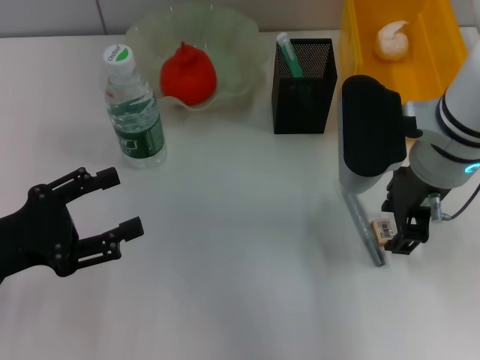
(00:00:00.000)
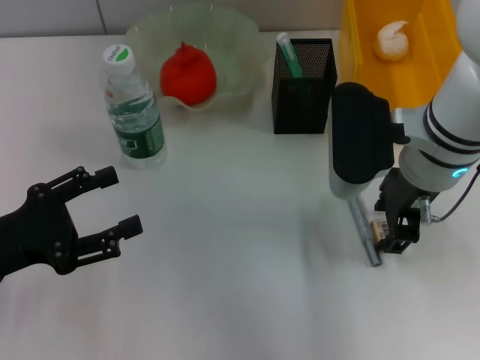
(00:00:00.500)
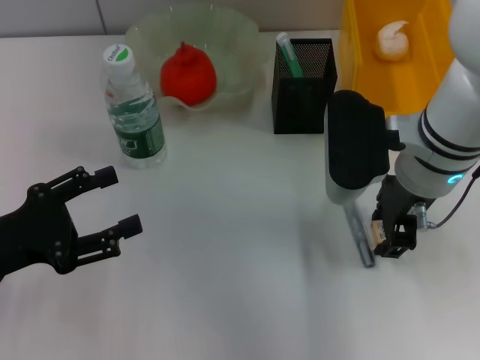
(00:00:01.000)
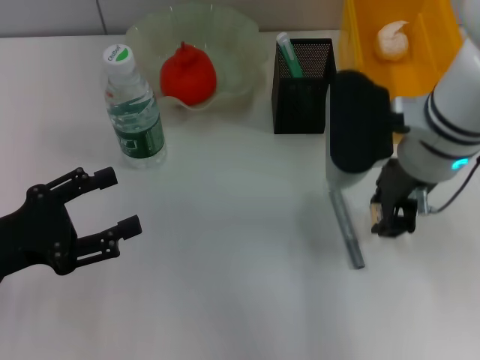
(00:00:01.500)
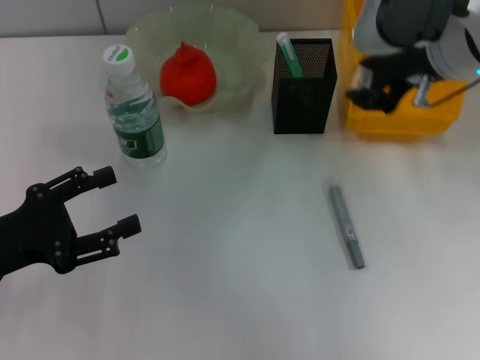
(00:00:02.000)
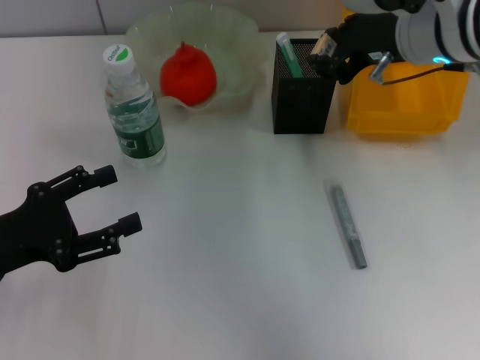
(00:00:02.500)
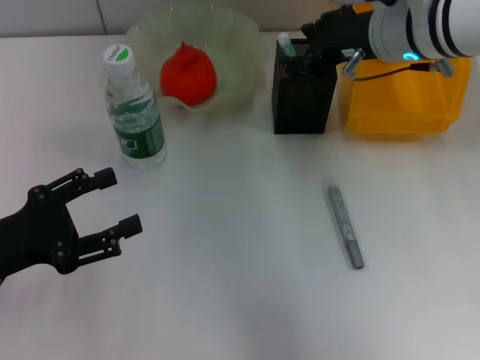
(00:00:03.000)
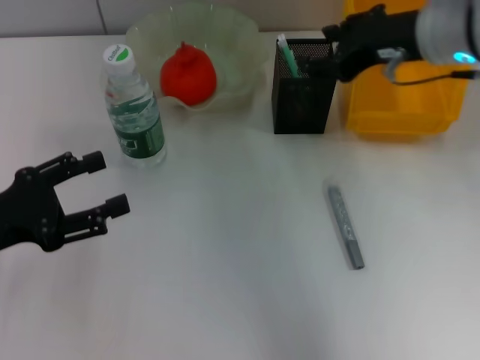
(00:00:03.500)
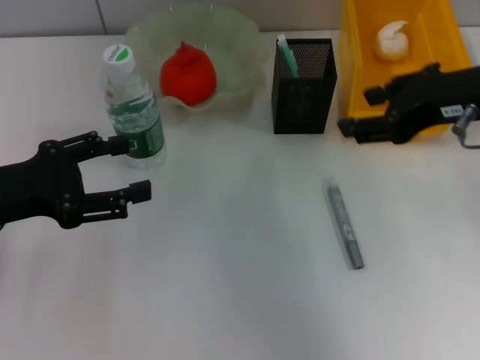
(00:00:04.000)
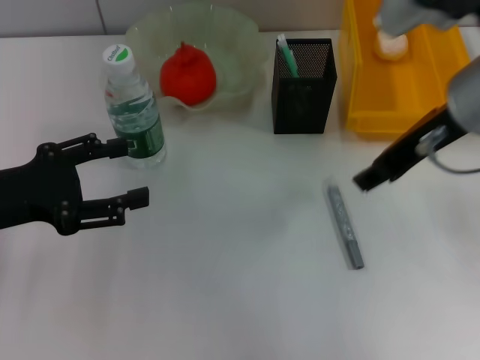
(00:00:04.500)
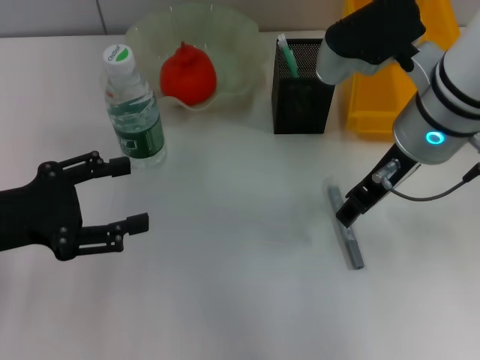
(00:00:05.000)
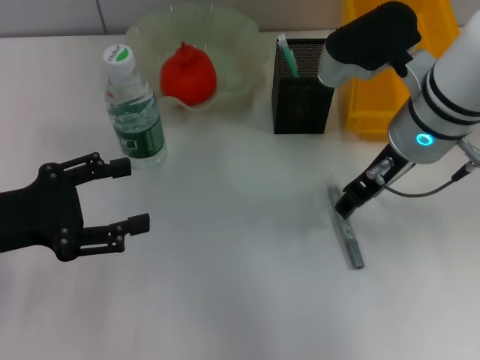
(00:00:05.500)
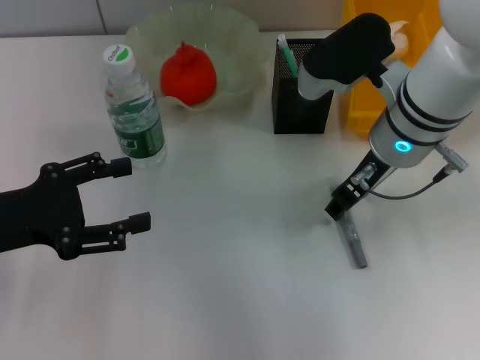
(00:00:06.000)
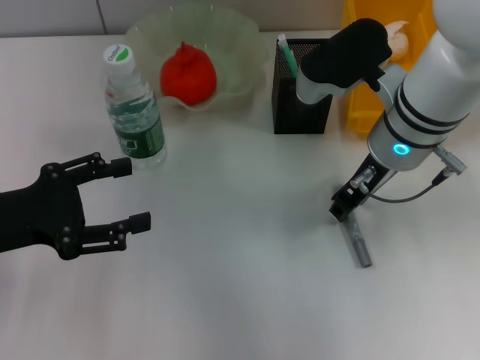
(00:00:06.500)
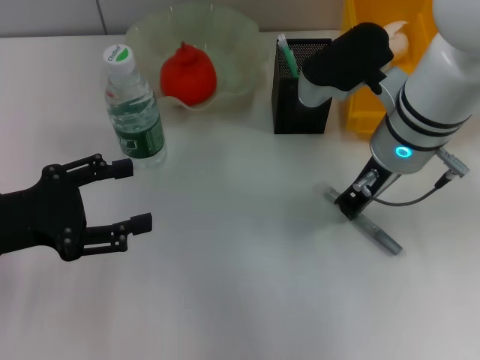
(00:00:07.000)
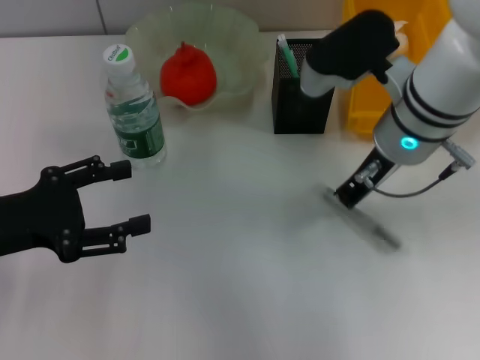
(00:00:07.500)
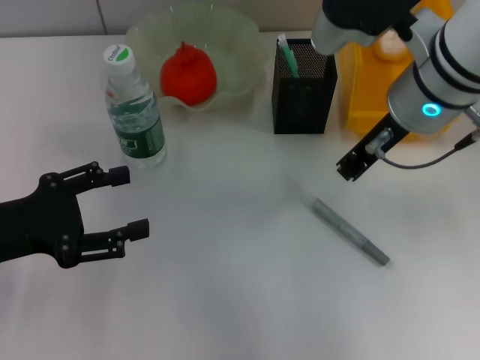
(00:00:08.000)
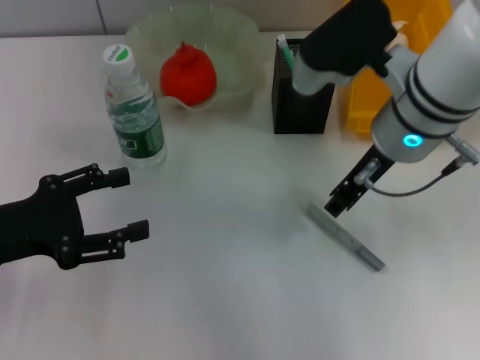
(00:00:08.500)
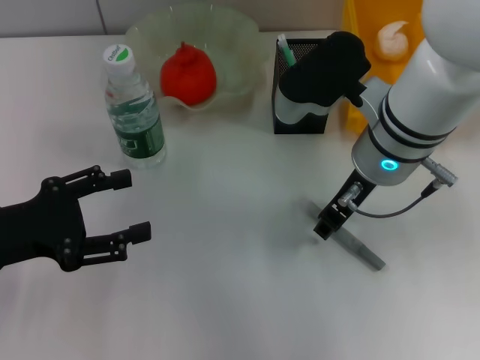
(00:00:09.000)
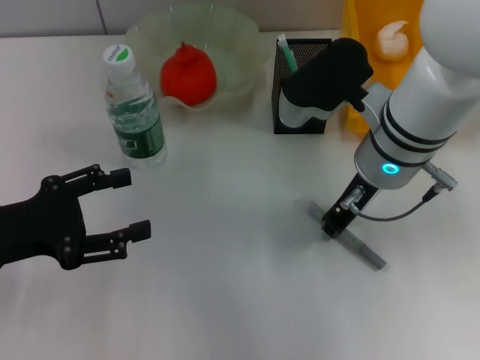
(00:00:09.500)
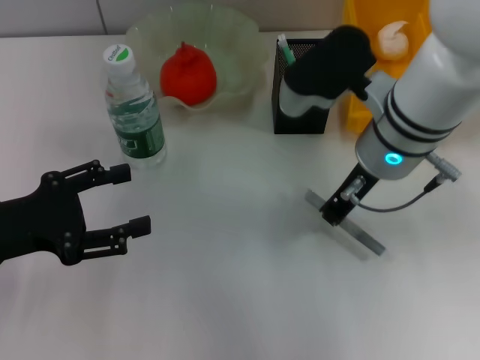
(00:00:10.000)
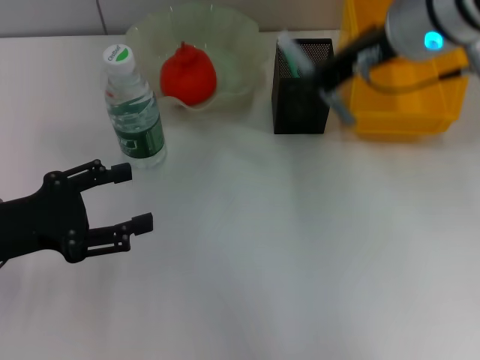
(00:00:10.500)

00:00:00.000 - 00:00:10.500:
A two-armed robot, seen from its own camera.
Step, 00:00:01.500 - 00:00:03.000: Put the eraser into the pen holder with the right hand.
Step, 00:00:03.500 - 00:00:09.500: Grab the gray glue with the right hand.
00:00:00.000 - 00:00:02.000: The right gripper shifts about 10 cm upward.
00:00:02.000 - 00:00:04.000: The left gripper shifts by some 5 cm. The right gripper is displaced to the right by roughly 5 cm.
00:00:04.000 - 00:00:06.500: The right gripper is displaced to the left and downward by roughly 10 cm.
00:00:06.500 - 00:00:08.500: The grippers stay close to where they were, moving slightly.
00:00:08.500 - 00:00:10.500: The right gripper moves upward, some 5 cm.

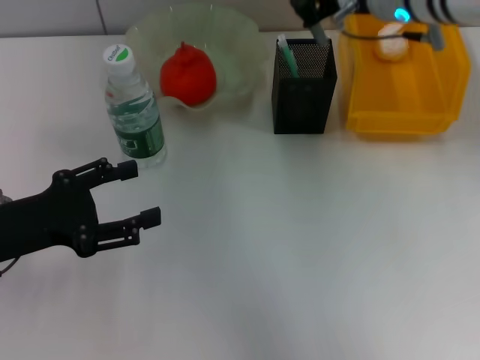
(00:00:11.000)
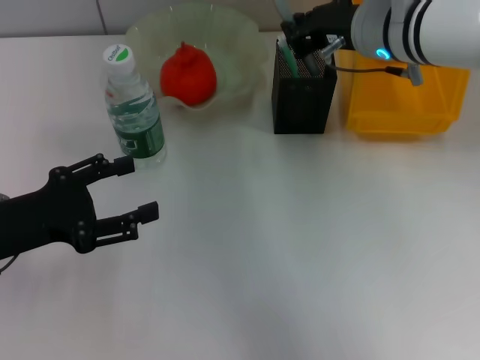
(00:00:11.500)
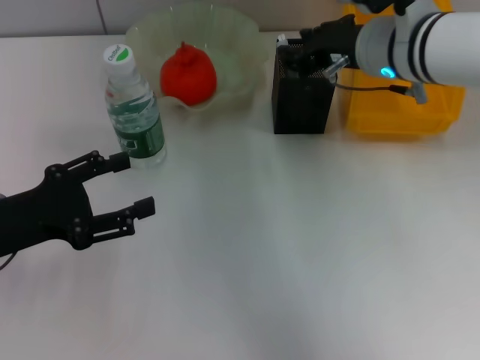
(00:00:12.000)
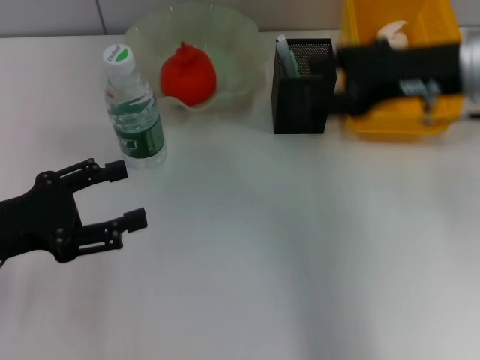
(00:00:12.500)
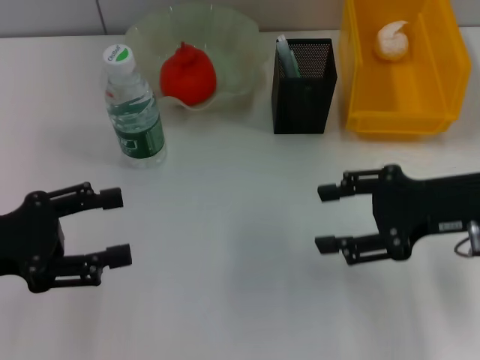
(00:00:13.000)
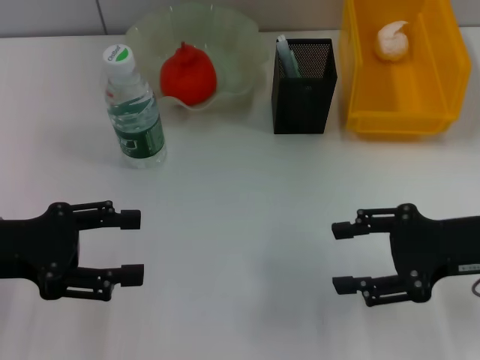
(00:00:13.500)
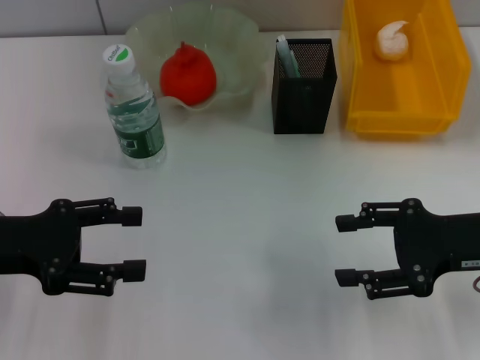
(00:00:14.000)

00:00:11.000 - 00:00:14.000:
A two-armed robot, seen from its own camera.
00:00:11.000 - 00:00:12.500: The right gripper is displaced to the right and backward by about 10 cm, and opens.
00:00:12.500 - 00:00:14.000: The right gripper travels downward, backward and to the right by some 15 cm.

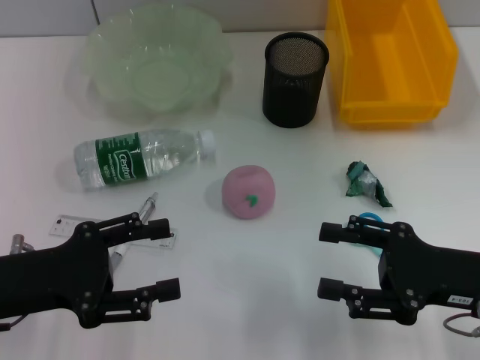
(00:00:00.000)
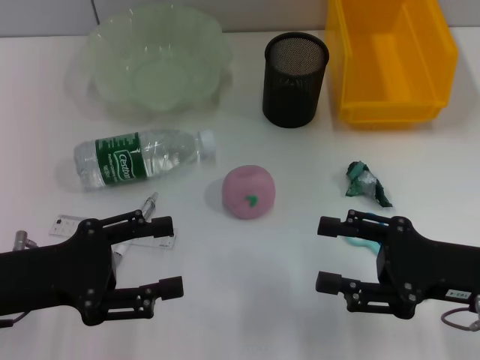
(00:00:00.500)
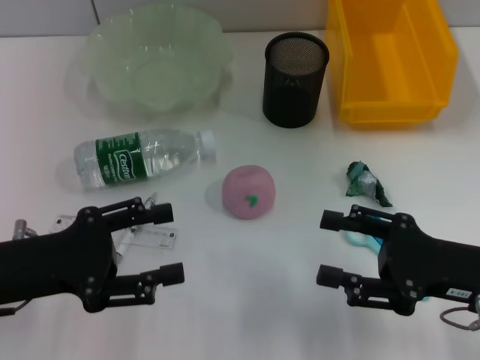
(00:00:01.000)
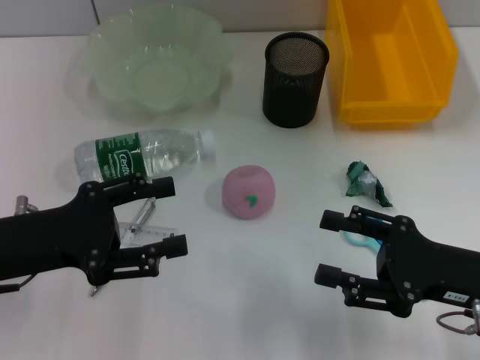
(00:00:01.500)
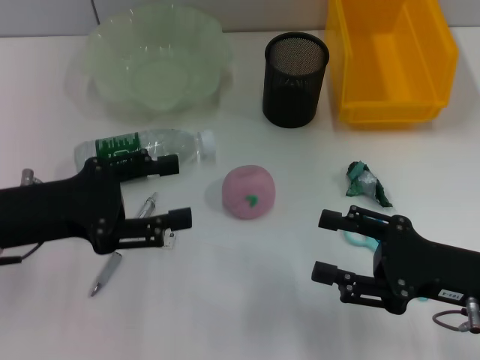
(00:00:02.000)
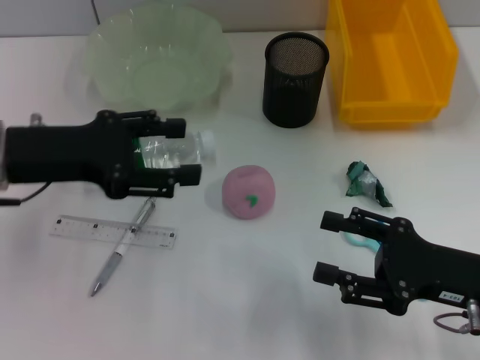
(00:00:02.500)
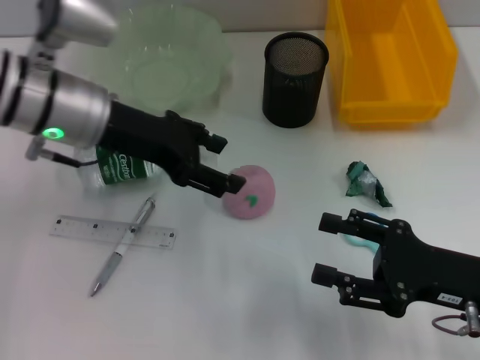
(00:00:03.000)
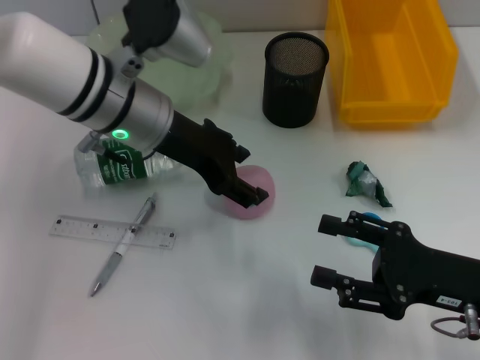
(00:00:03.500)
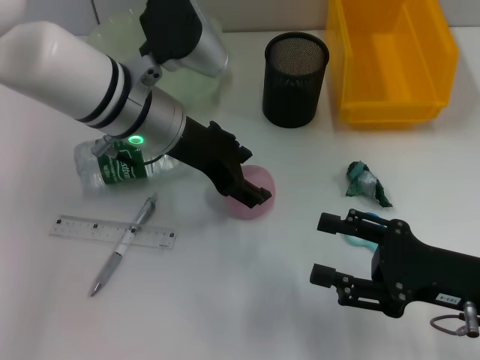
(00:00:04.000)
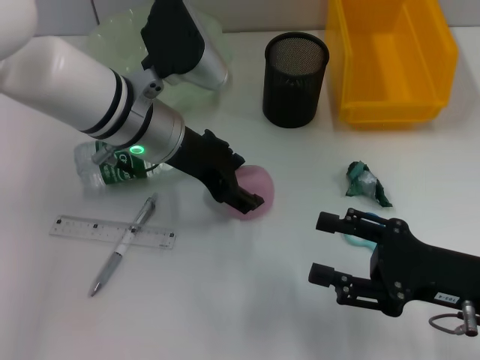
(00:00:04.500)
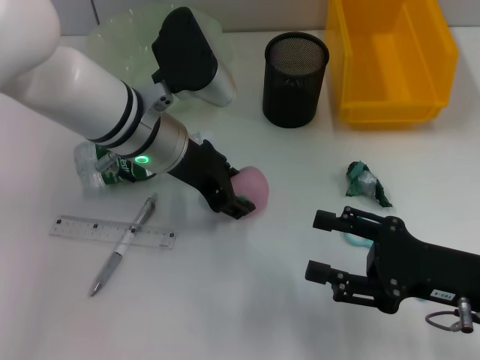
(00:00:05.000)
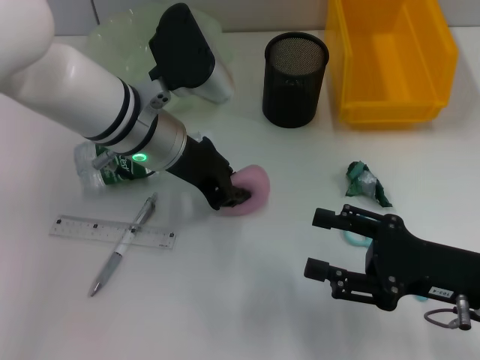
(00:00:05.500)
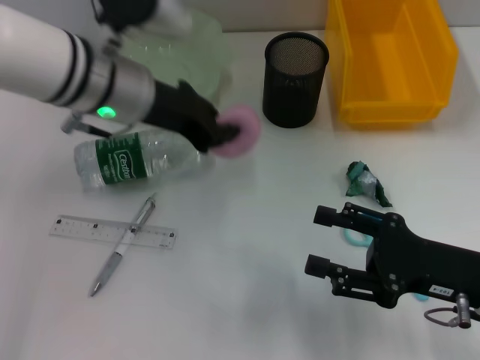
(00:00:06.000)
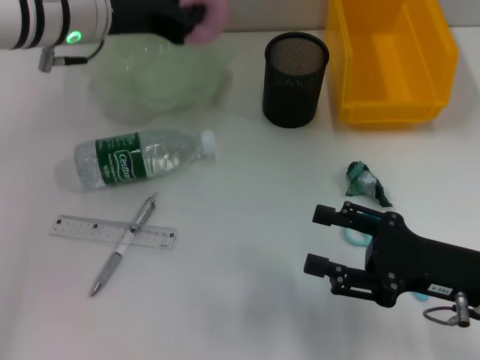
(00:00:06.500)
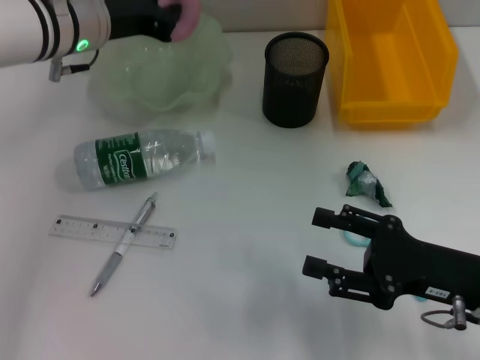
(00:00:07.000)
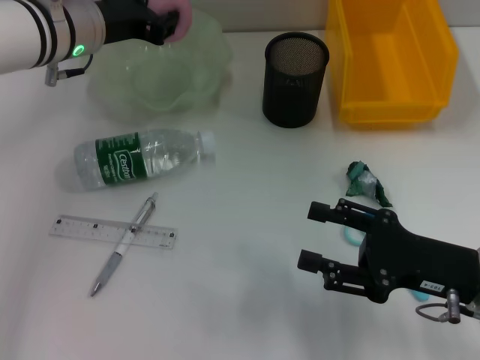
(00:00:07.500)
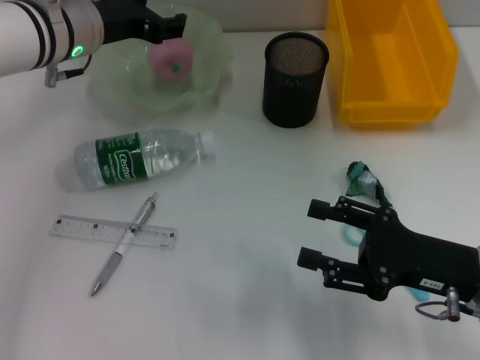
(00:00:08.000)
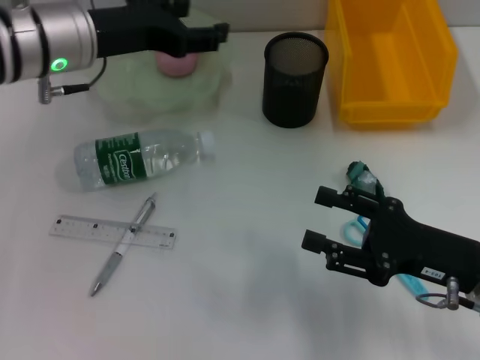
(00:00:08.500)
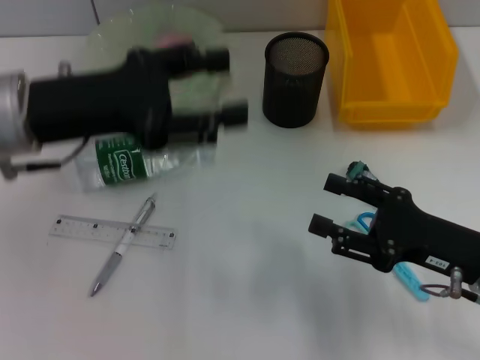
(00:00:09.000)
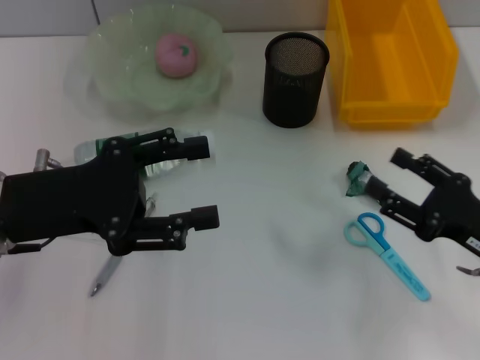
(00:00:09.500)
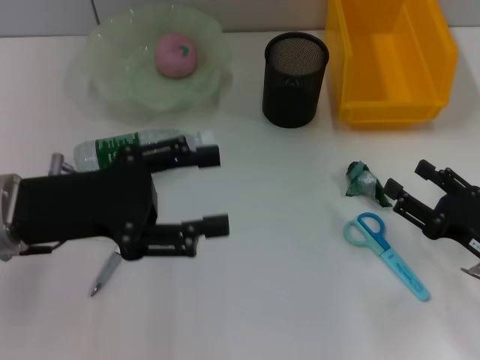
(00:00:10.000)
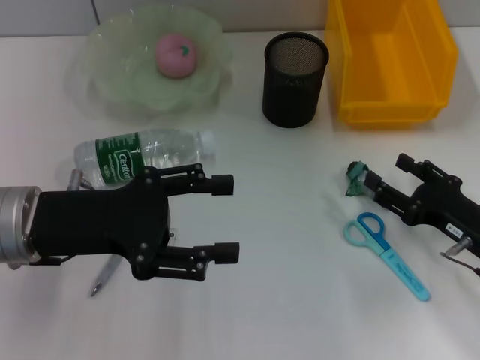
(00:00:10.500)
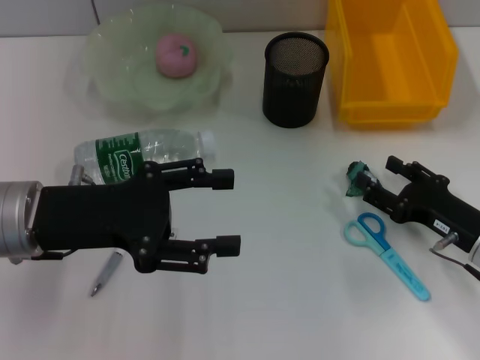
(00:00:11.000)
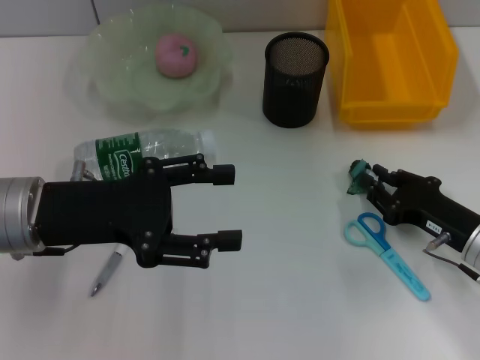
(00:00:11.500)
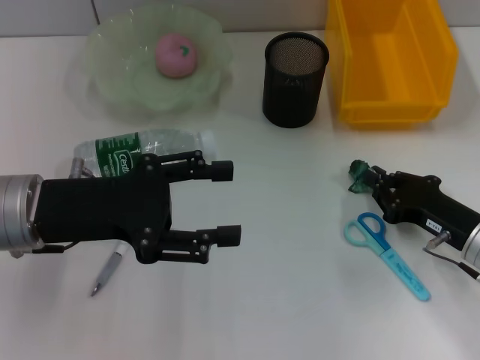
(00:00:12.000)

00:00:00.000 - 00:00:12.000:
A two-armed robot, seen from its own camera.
Step, 00:00:00.000 - 00:00:05.000: Grab the peach with the left hand.
Step, 00:00:05.500 - 00:00:08.000: Place the peach into the fruit bowl with the left hand.
Step, 00:00:08.500 - 00:00:12.000: Grab the plastic with the right hand.
00:00:00.000 - 00:00:02.000: The left gripper moves roughly 5 cm.
00:00:02.000 - 00:00:04.000: The left gripper is displaced to the right and forward by some 20 cm.
00:00:04.000 - 00:00:06.000: The left gripper closes its fingers.
00:00:06.000 - 00:00:08.000: The left gripper heads forward, covering approximately 5 cm, and opens its fingers.
00:00:08.000 - 00:00:10.000: The right gripper is displaced to the right by some 5 cm. Meanwhile the left gripper heads backward, covering approximately 15 cm, and opens.
00:00:10.000 - 00:00:12.000: The right gripper moves some 5 cm, and closes up.
